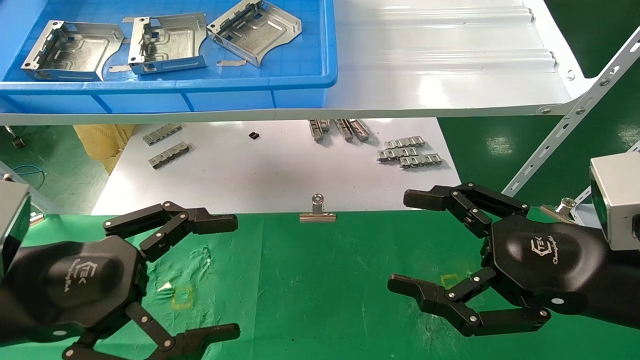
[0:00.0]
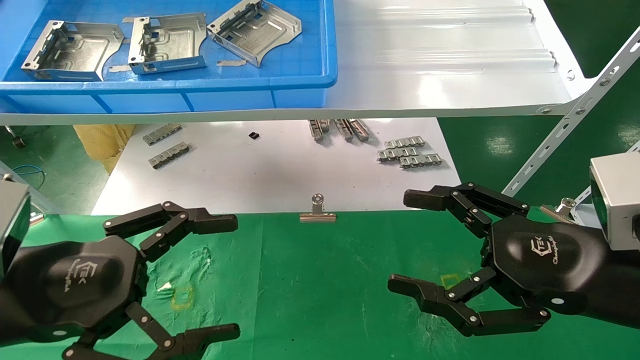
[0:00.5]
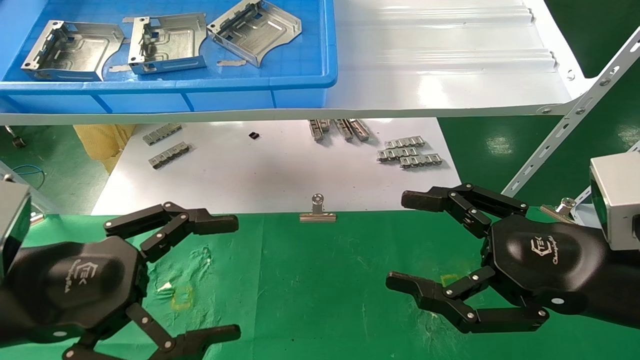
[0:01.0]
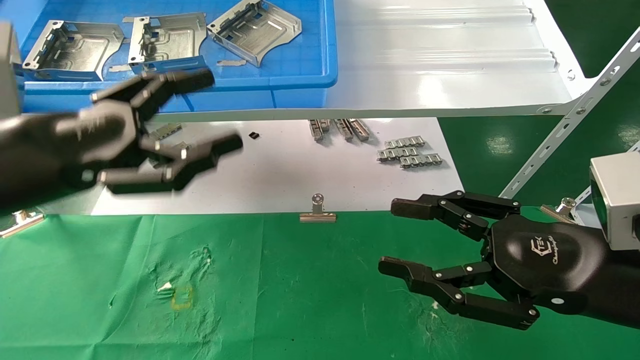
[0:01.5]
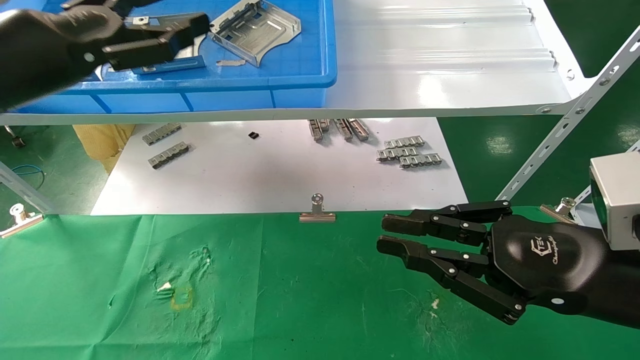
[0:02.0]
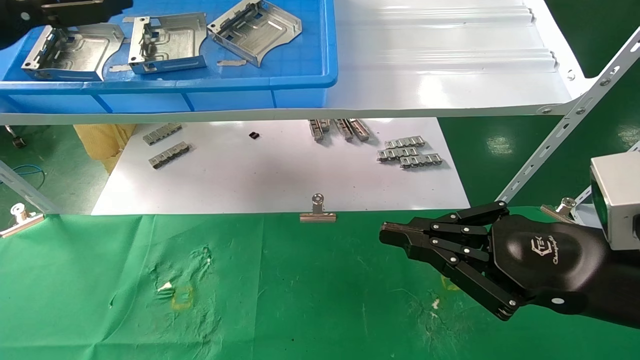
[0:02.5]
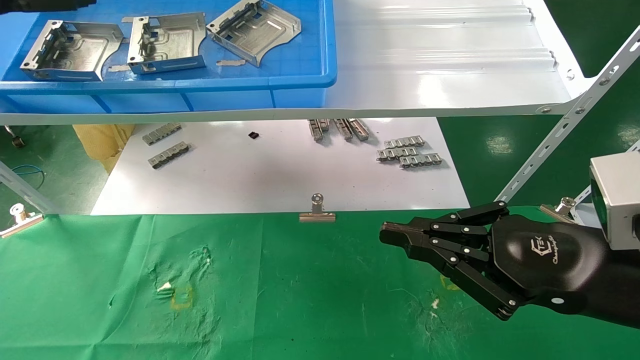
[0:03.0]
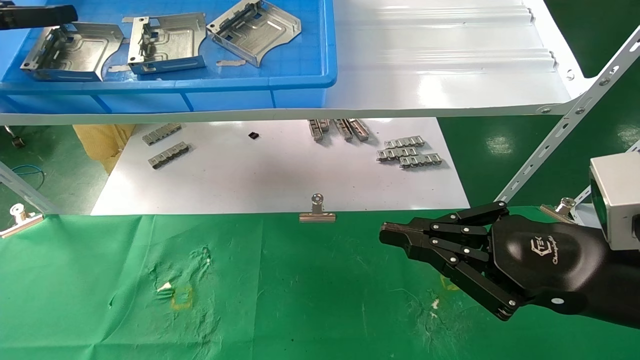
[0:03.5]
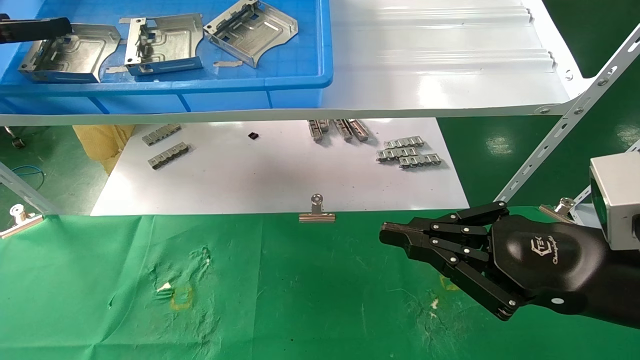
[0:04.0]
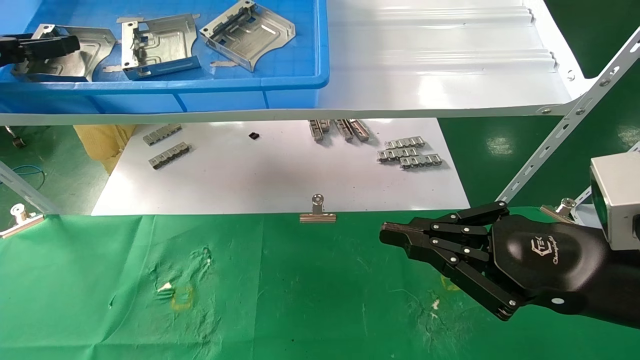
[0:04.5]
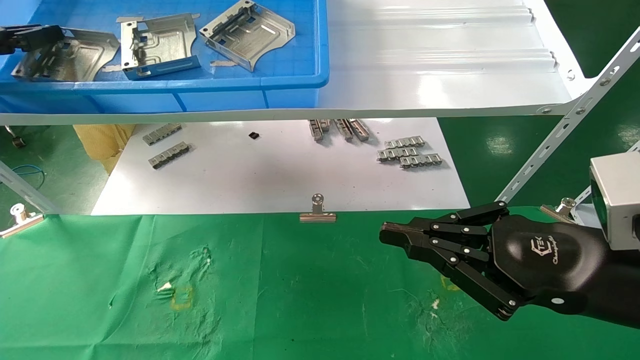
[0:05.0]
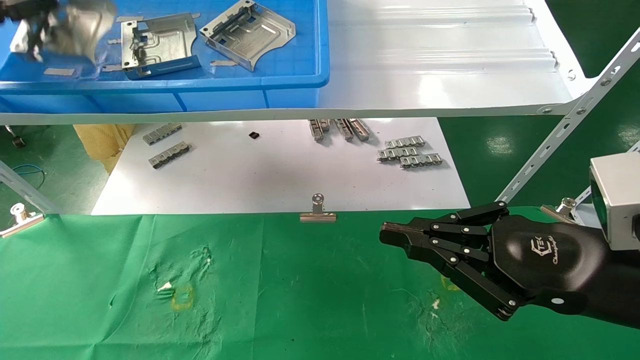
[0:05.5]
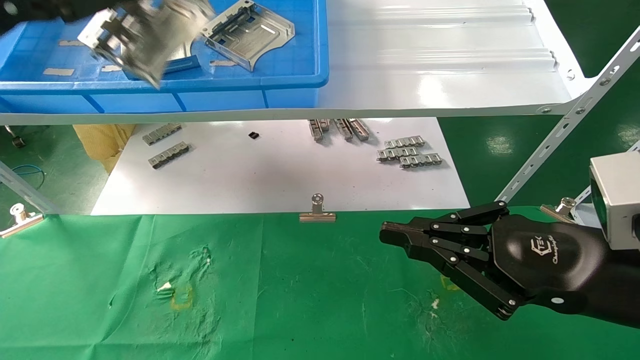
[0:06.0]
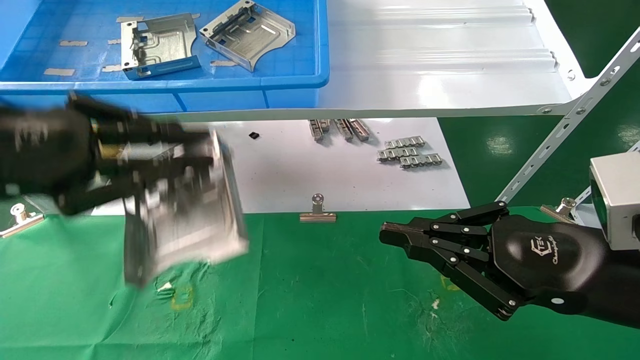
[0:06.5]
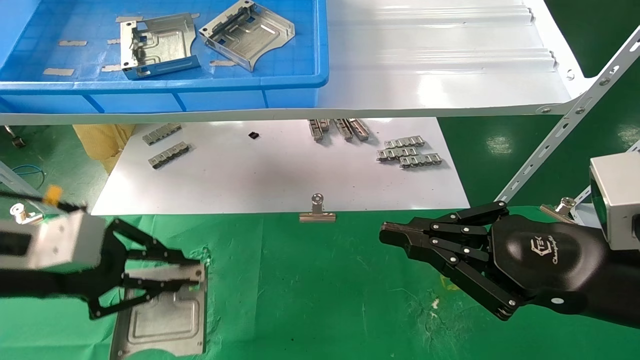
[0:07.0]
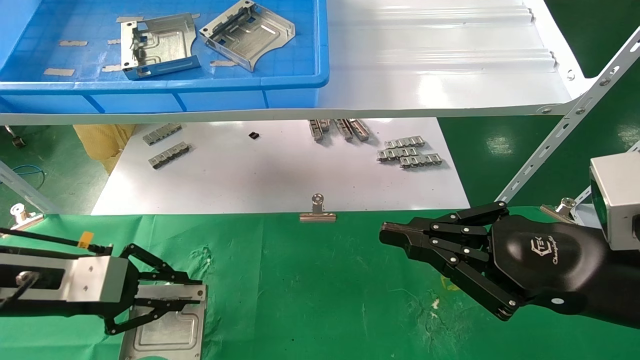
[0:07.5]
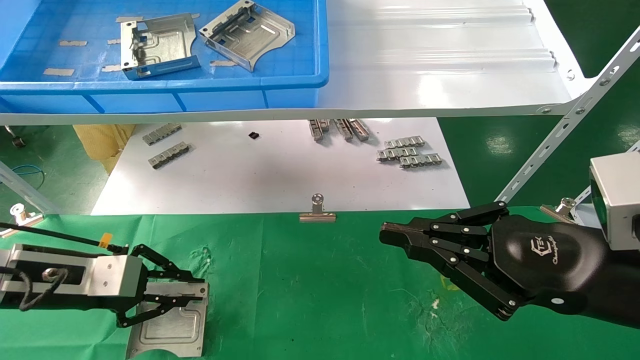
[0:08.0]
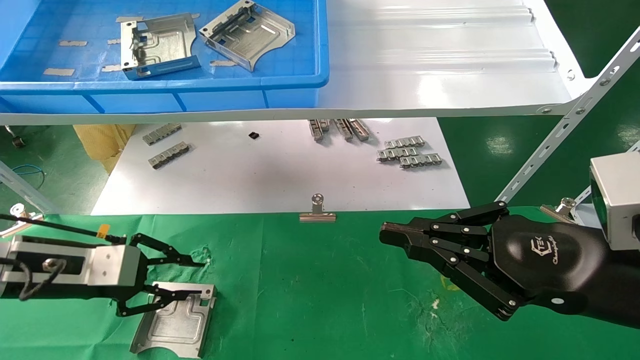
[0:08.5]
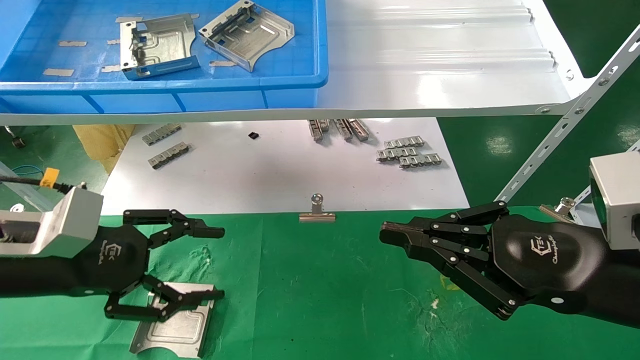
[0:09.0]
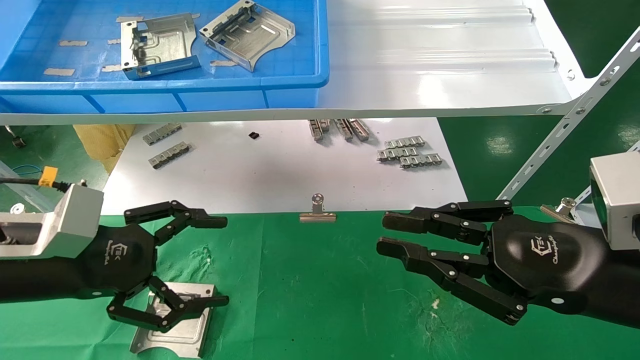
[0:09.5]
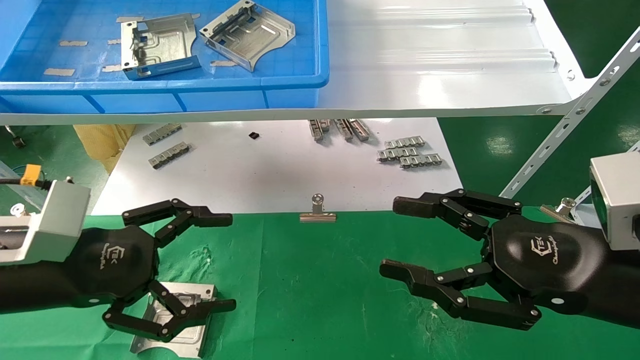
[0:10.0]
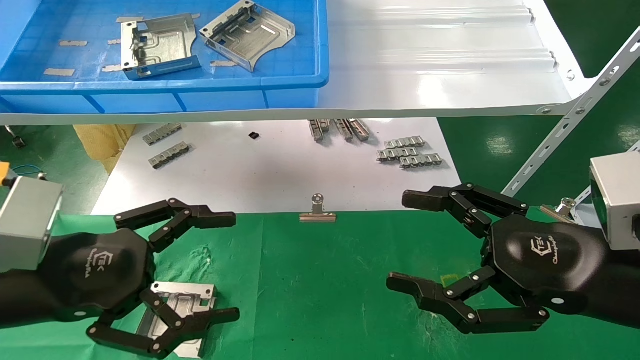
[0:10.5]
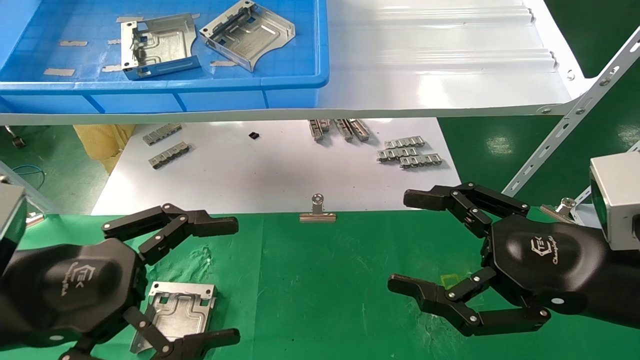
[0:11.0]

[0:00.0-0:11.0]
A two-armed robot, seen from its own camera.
Task of the whole recording: use the mechanical arm to pick up the parts and place them on the table.
Step, 0:01.5 to 0:05.0: Pick up the hard drive bracket from the feeding area.
Step, 0:05.5 to 0:08.5: Place the hard drive bracket into the box.
0:00.0 to 0:02.0: The right gripper closes up. The left gripper heads upward and forward, covering approximately 20 cm.
0:02.0 to 0:03.5: The left gripper goes approximately 10 cm to the left.
0:03.5 to 0:05.5: The left gripper closes.
0:05.5 to 0:07.5: The left gripper moves downward, approximately 25 cm.
0:07.5 to 0:09.0: The left gripper opens its fingers.
0:09.0 to 0:11.0: The right gripper opens up; the left gripper is displaced backward by approximately 10 cm, and opens its fingers.
